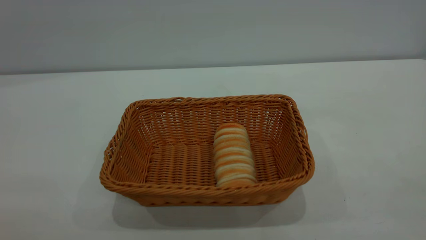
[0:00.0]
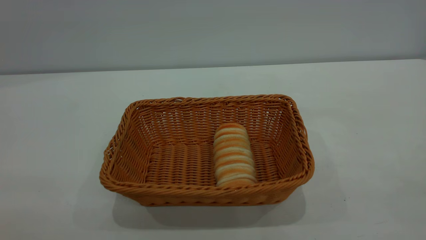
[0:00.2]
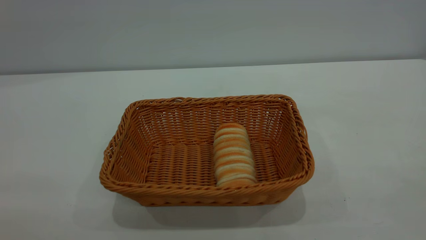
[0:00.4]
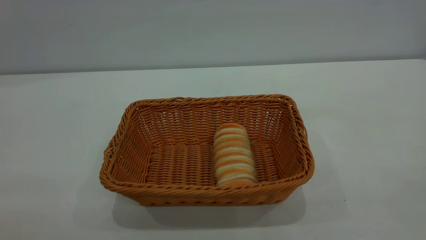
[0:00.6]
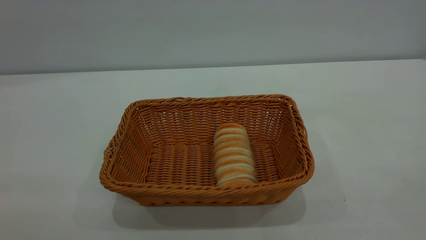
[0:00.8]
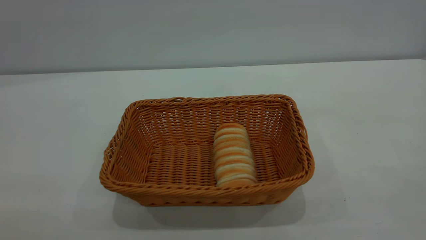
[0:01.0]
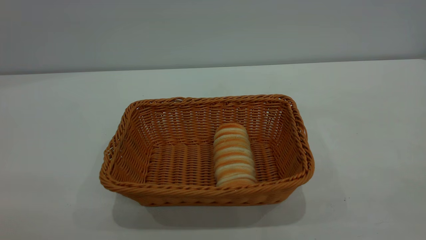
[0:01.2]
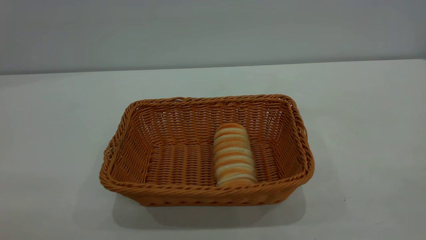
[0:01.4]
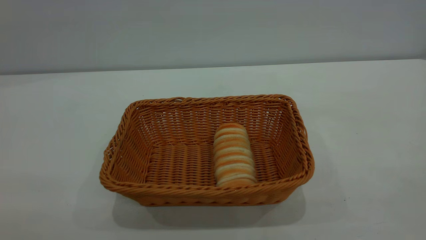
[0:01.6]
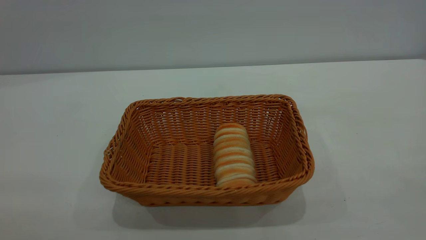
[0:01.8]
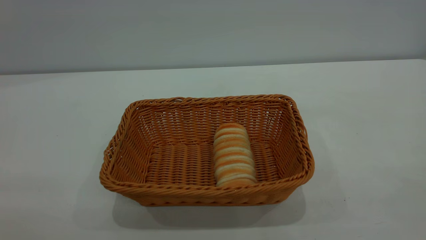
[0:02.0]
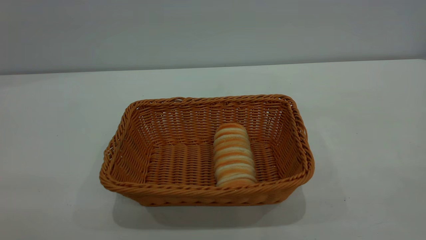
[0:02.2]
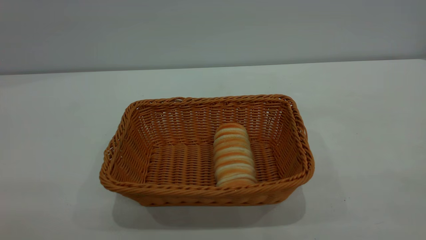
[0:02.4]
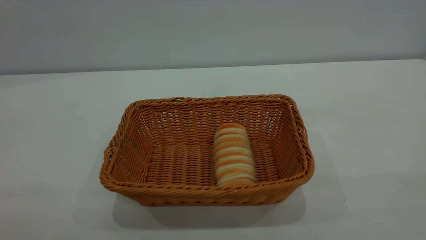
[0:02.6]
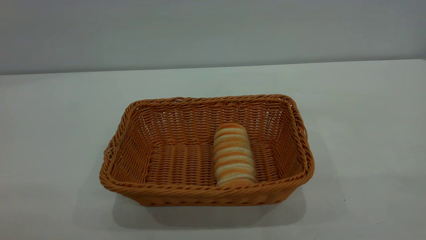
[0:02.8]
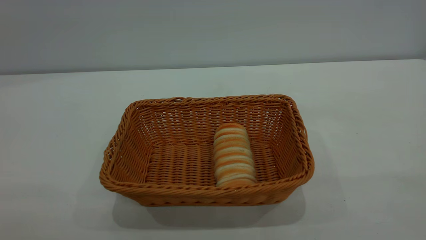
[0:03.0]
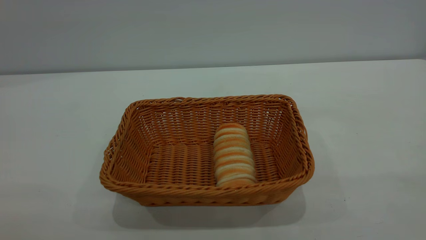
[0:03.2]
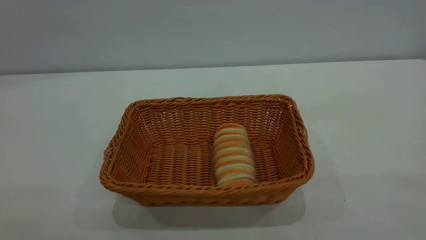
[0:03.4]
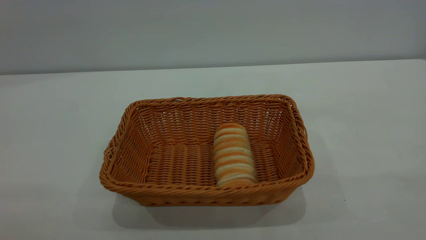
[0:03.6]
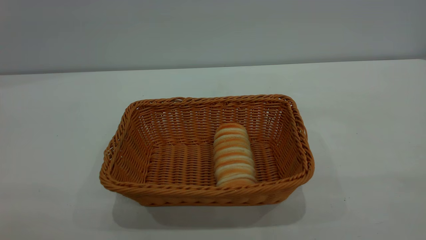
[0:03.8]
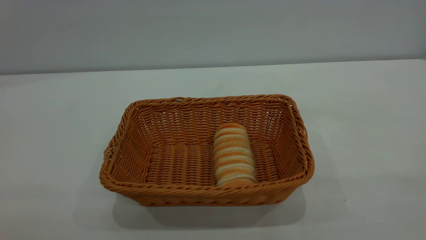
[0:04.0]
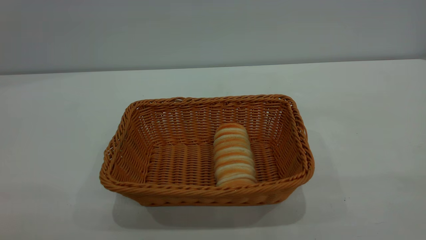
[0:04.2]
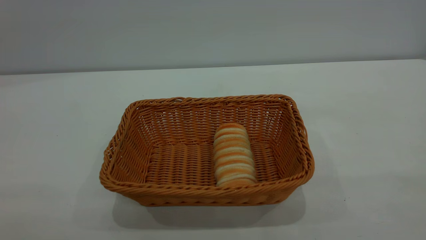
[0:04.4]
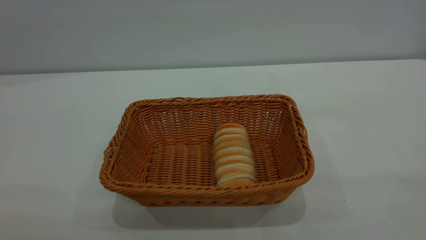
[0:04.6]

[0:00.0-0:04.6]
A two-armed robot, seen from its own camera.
Task of the whole recording: One hand grasps the yellow basket and places it in the middle of the table, while the other hand picks up the long bread and puts it into the yellow basket.
0:03.0 to 0:04.6: Neither gripper changes place.
